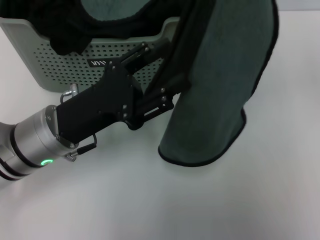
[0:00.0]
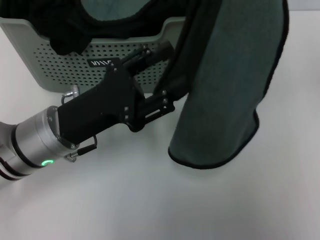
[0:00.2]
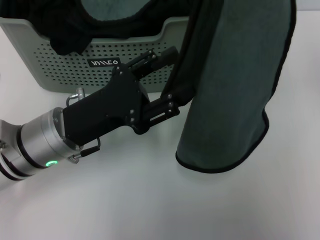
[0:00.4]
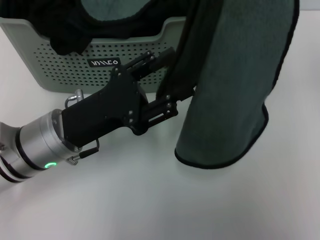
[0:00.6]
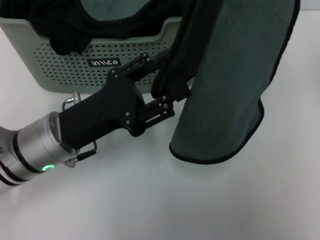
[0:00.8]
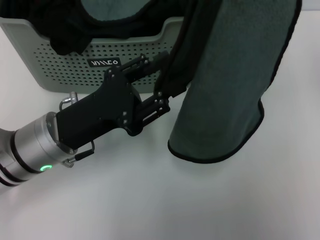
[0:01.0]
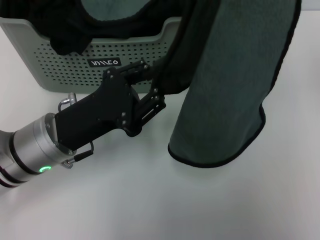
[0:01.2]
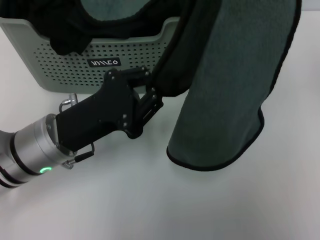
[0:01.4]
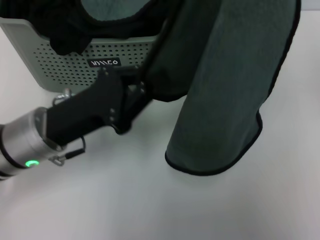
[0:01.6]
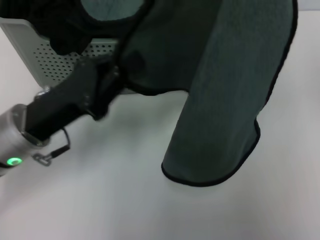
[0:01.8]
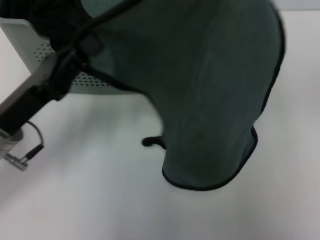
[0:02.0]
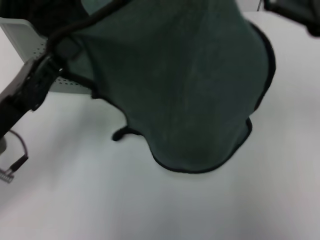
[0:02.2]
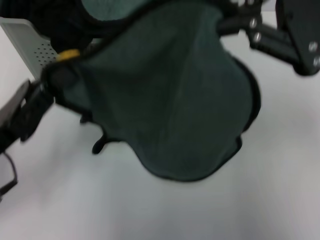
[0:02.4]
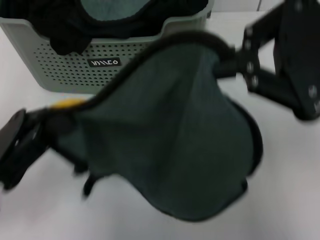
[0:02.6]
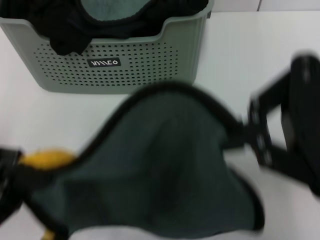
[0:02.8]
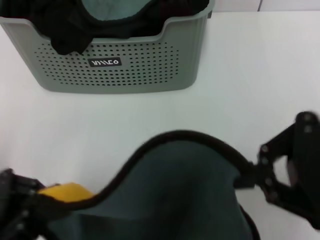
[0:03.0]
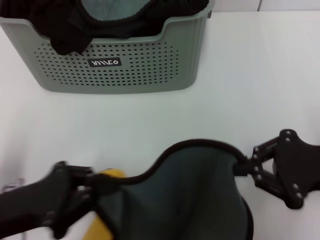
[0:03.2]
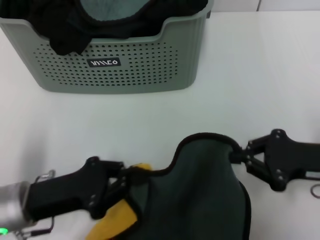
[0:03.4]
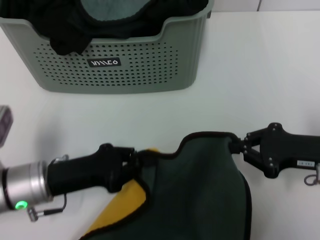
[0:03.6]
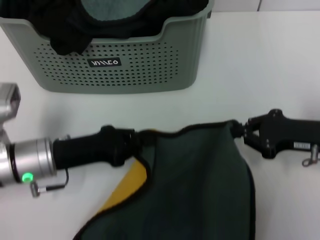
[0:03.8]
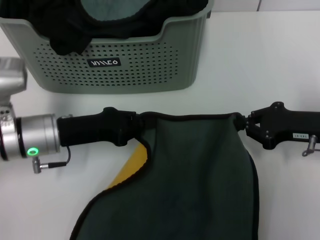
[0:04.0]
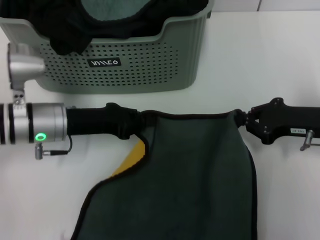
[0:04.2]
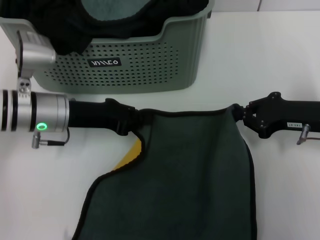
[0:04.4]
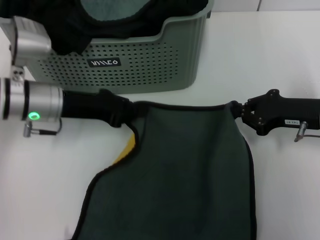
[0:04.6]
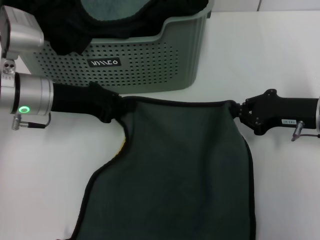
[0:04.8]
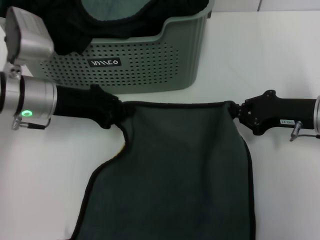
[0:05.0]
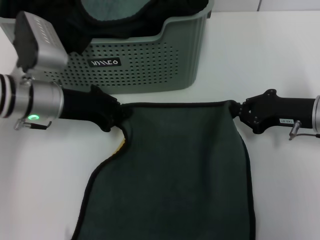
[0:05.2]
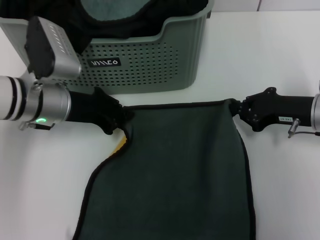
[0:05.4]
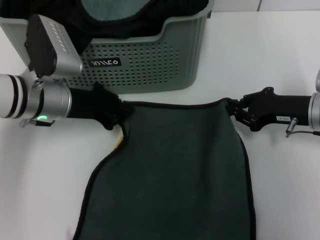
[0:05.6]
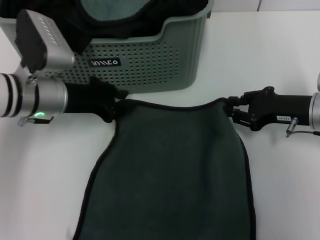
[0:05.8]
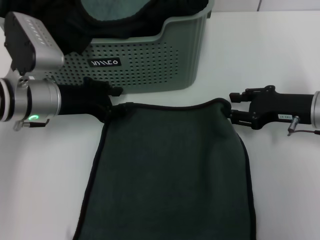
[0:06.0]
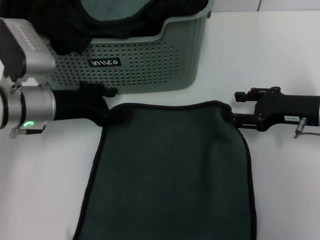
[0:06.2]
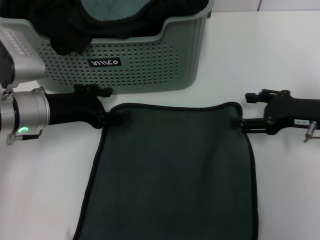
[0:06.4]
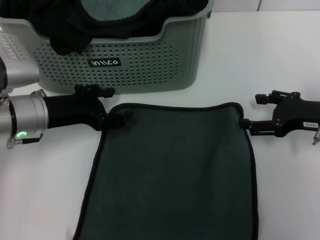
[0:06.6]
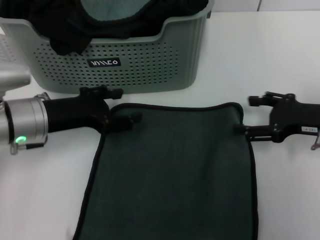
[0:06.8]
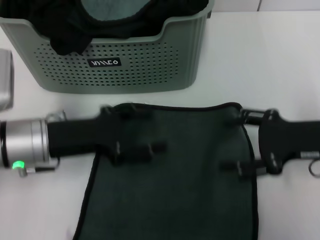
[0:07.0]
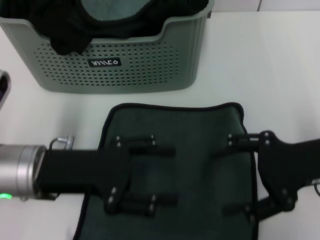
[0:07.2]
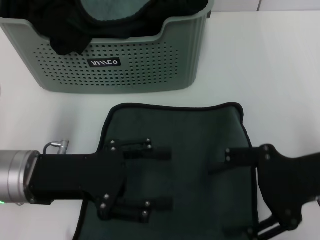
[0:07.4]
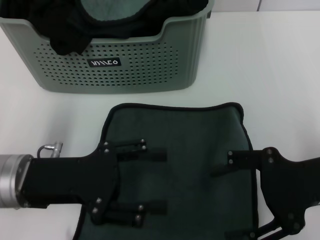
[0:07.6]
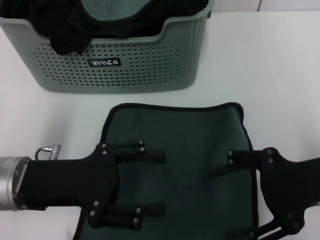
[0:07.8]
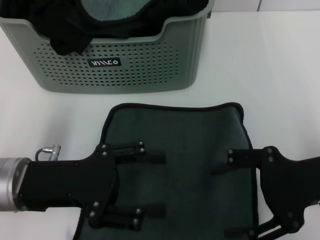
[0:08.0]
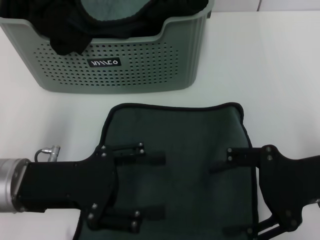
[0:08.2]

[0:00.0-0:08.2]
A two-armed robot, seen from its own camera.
Task of the whole recording: pick up the towel from the storage box and lay it flat on the table.
Step, 0:00.0 to 0:06.0: Spread the towel flat with the right gripper.
0:00.0 to 0:01.6: The left gripper closes its fingers.
0:01.6 to 0:03.2: The right gripper travels downward by roughly 25 cm. Meanwhile the left gripper moves backward and to the left, approximately 10 cm.
0:03.2 to 0:05.0: The left gripper heads forward, covering roughly 20 cm. Meanwhile the right gripper travels forward and downward by approximately 15 cm.
0:05.0 to 0:06.6: The left gripper opens; the right gripper opens up.
0:06.6 to 0:08.2: The two grippers go about 10 cm backward.
